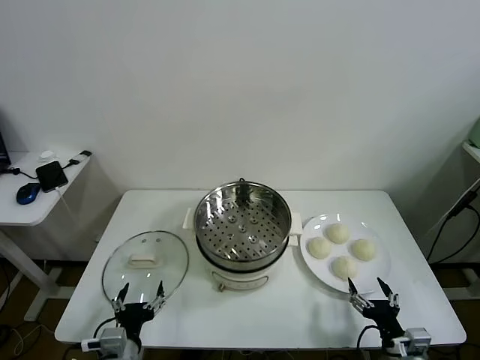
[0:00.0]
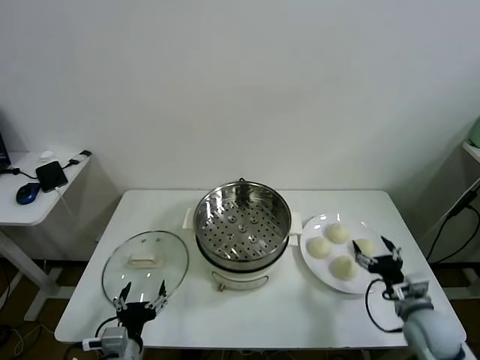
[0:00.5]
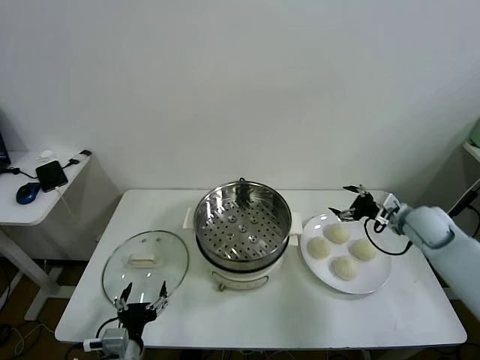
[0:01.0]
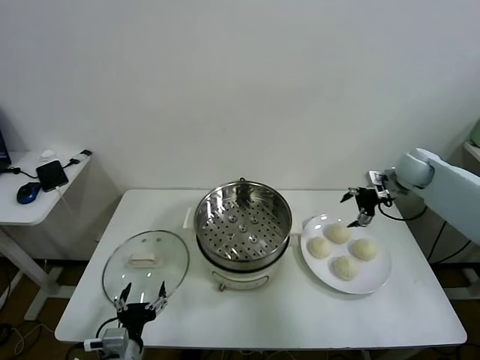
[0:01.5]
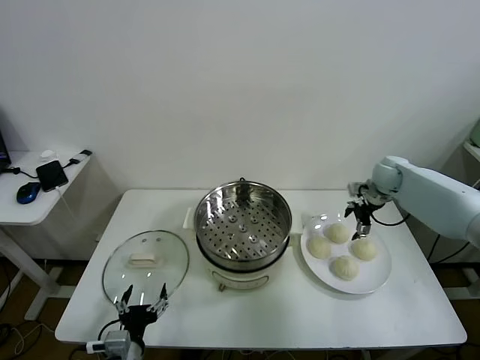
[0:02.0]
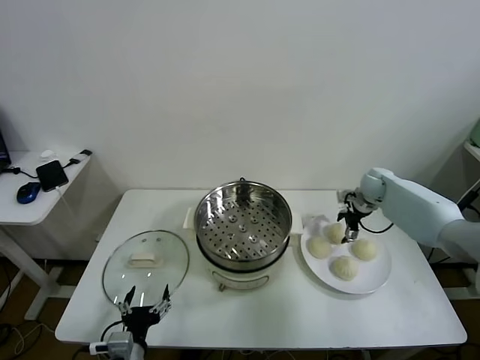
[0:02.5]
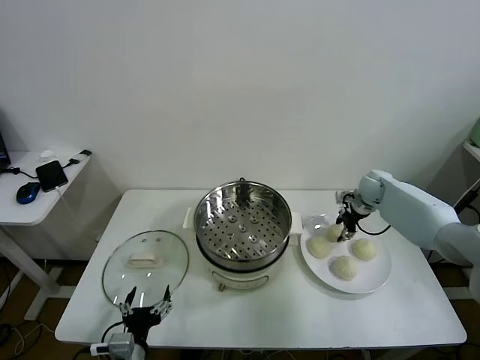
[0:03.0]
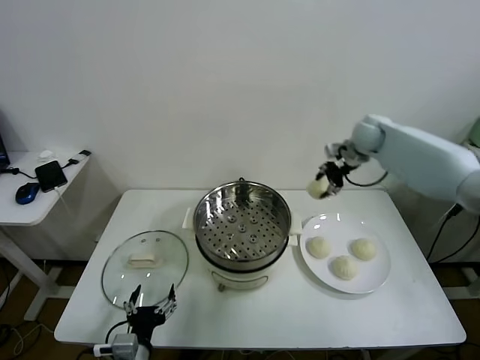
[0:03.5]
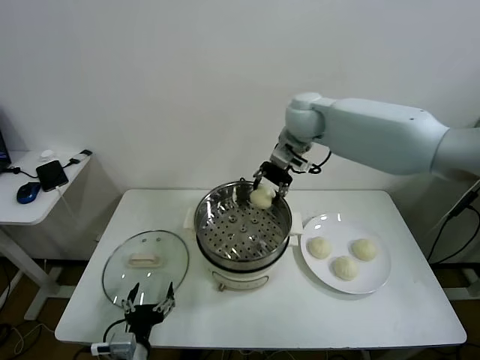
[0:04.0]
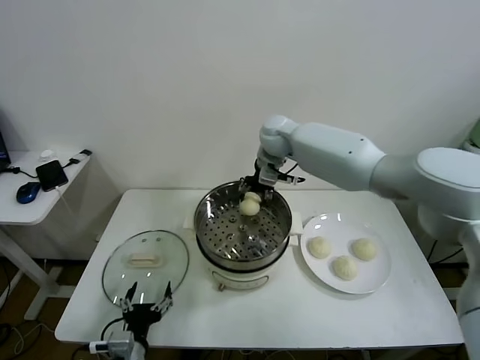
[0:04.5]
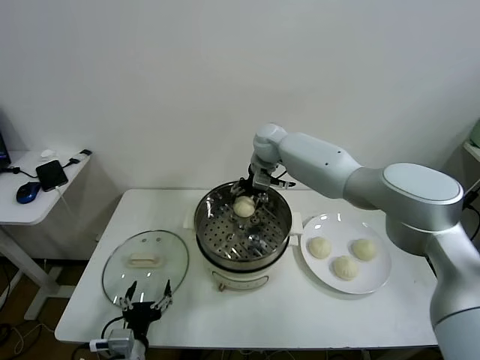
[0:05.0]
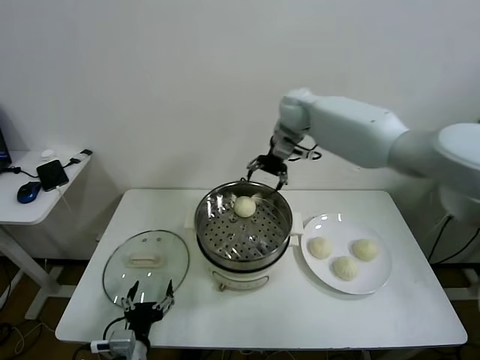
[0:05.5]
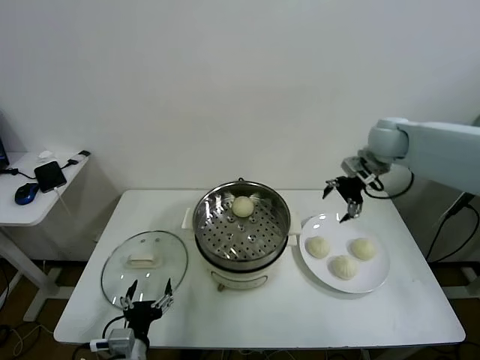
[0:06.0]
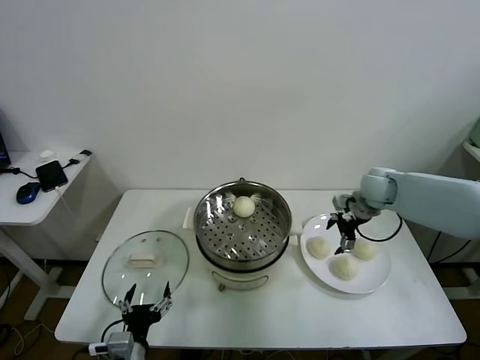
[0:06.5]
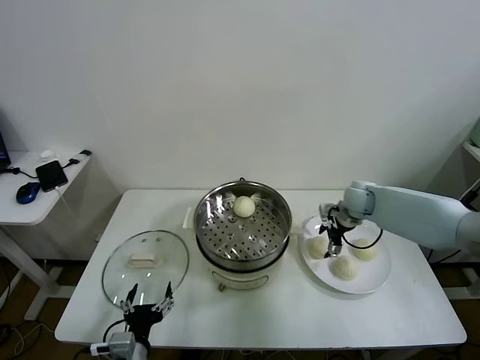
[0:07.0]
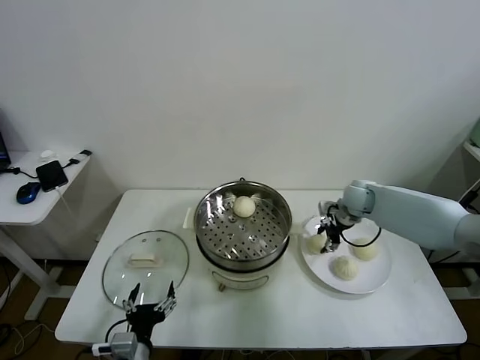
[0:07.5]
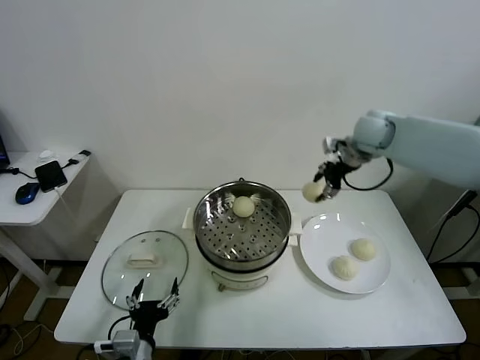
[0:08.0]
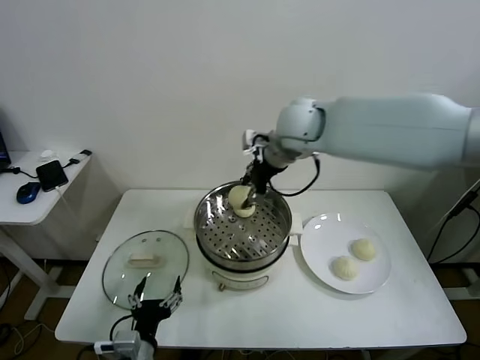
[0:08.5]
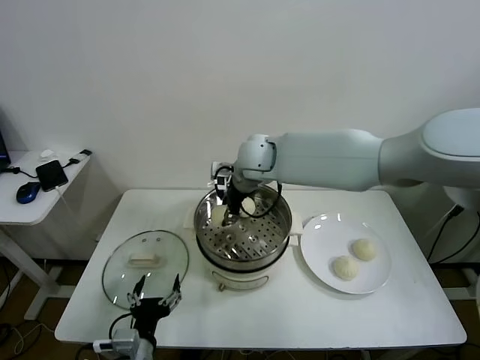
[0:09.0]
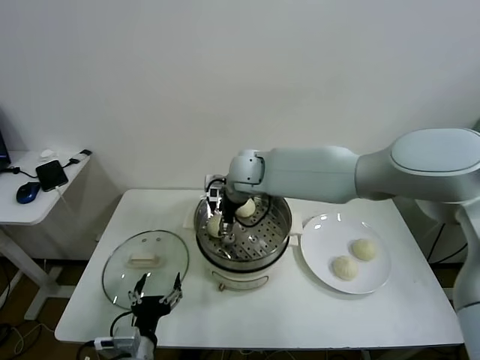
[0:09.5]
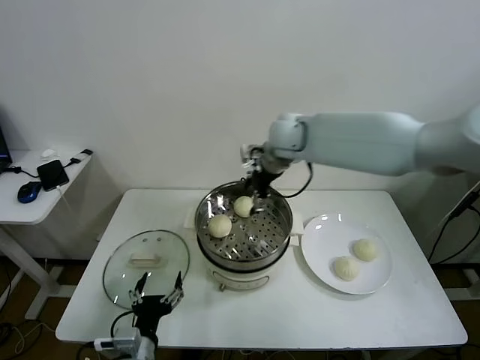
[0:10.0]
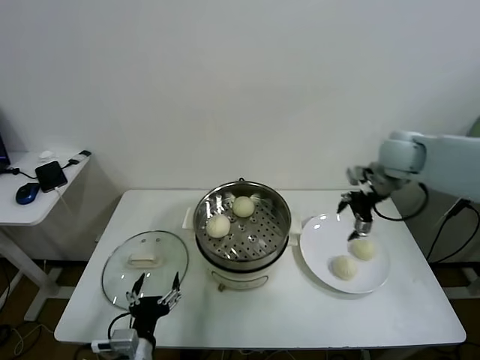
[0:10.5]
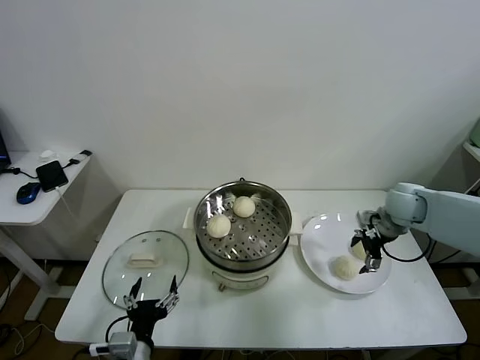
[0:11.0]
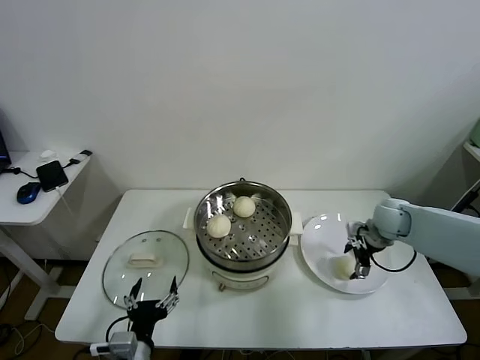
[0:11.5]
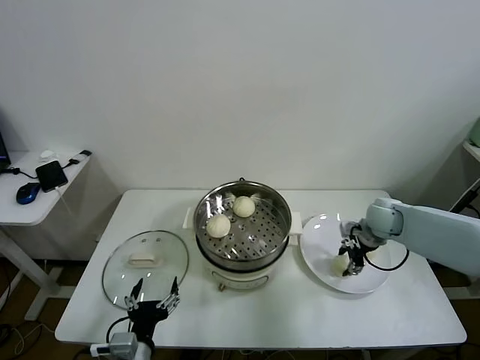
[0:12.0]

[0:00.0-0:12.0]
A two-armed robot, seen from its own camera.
Task of the whole recording: take steamed baozi put them in steamer.
Step, 0:00.0 to 0:02.5: Grasp the baozi in the plate with right gripper.
Step, 0:03.0 to 0:05.0: Place the baozi on the steamer with right gripper.
Step, 0:05.5 to 0:07.0: Grasp the baozi in the plate with right gripper.
Step, 0:07.5 to 0:09.5: Place the baozi on the steamer with right gripper.
Step, 0:10.0 to 0:11.5: Grasp the baozi in the plate with right gripper.
0:02.0 to 0:04.0: The right gripper is displaced to the left and upward by approximately 30 cm, and closes its fingers.
0:04.0 to 0:06.0: The right gripper travels to the right by some 20 cm, and opens its fingers.
0:06.0 to 0:08.0: The right gripper shifts some 5 cm to the left, travels downward and back again, some 15 cm each way, and closes.
0:08.0 to 0:10.0: The right gripper shifts roughly 15 cm to the left, and opens up.
0:10.0 to 0:12.0: The right gripper is displaced to the right and downward by approximately 30 cm, and closes.

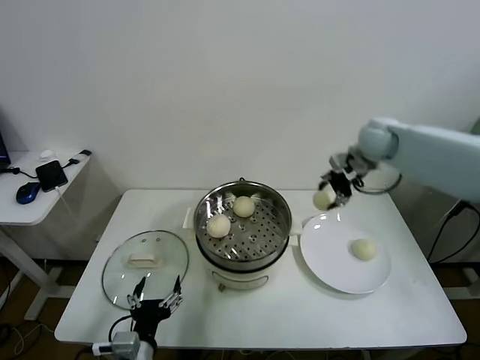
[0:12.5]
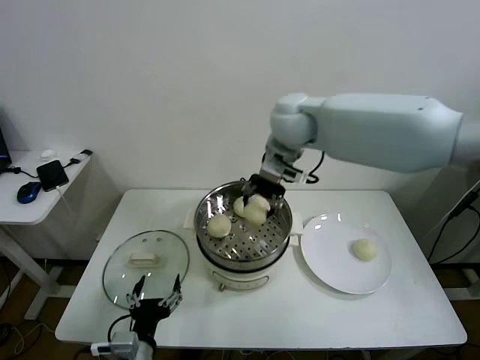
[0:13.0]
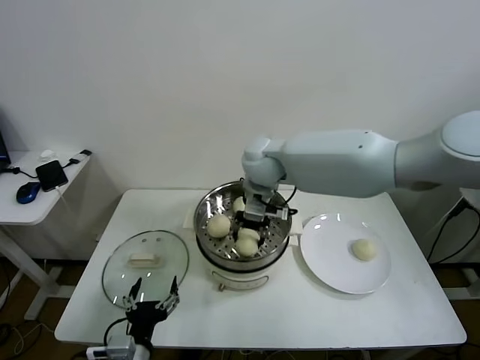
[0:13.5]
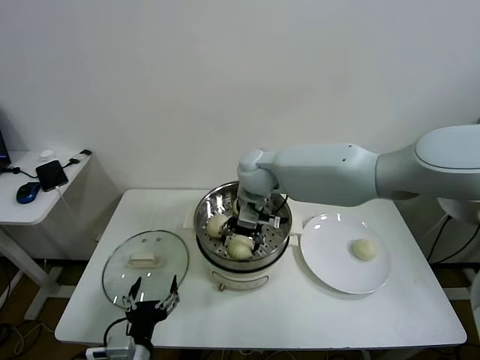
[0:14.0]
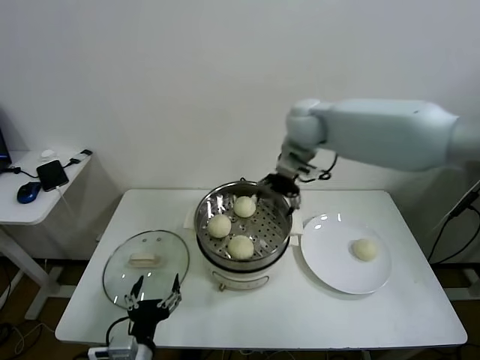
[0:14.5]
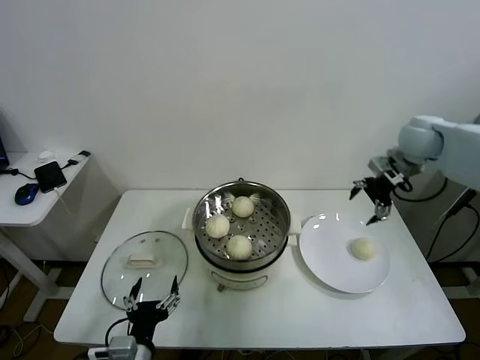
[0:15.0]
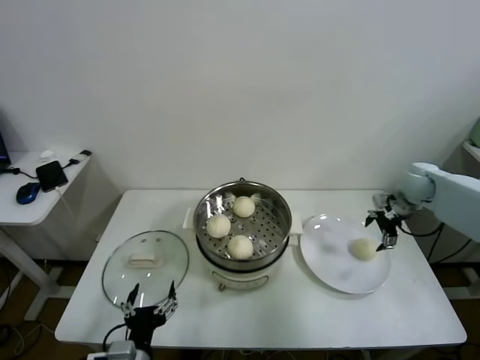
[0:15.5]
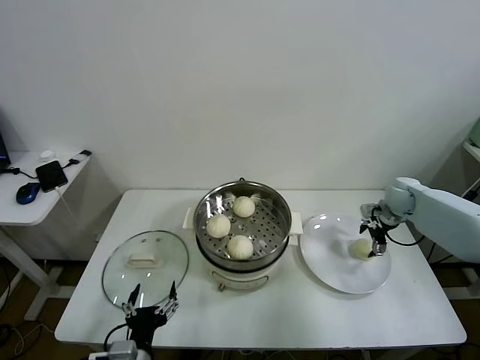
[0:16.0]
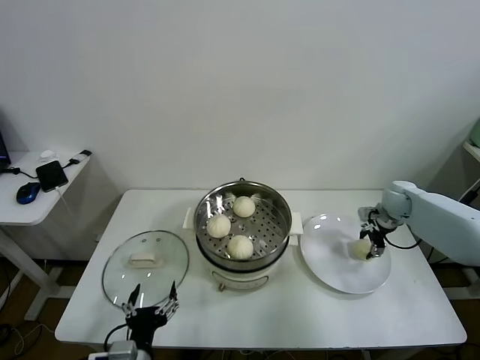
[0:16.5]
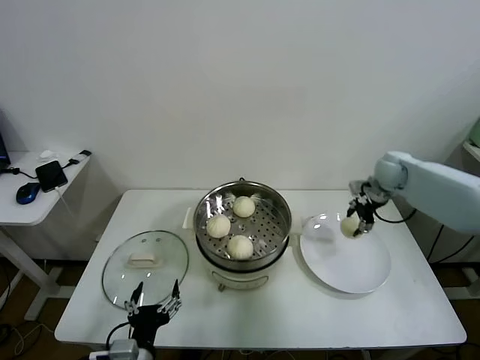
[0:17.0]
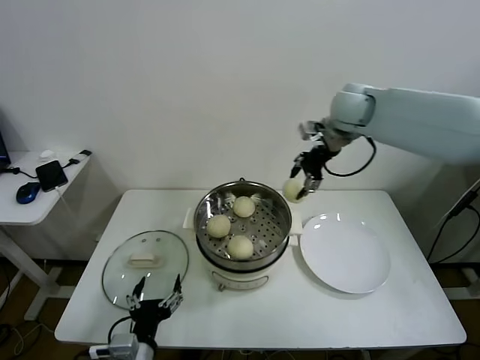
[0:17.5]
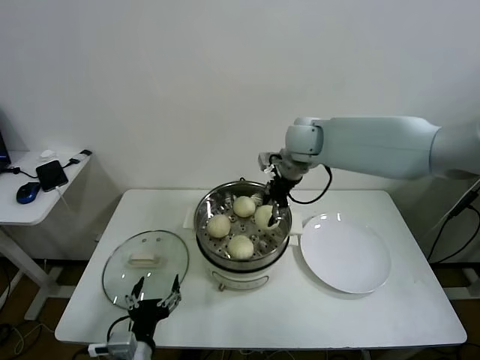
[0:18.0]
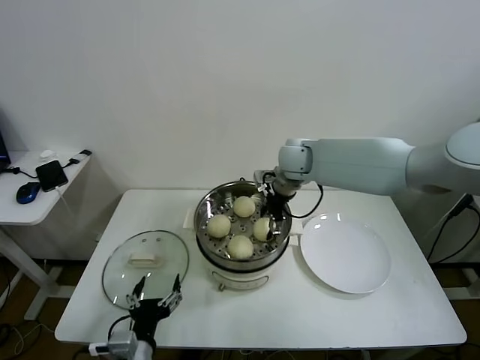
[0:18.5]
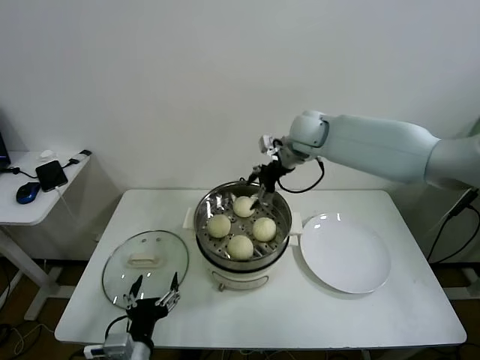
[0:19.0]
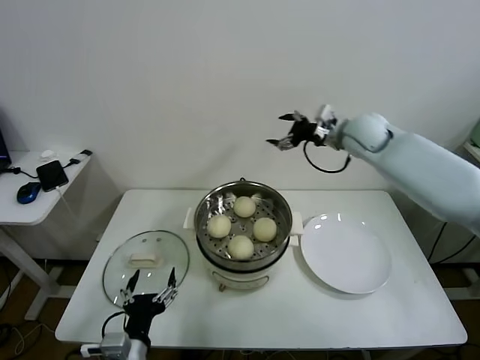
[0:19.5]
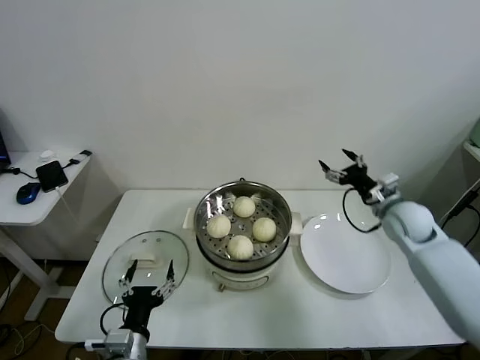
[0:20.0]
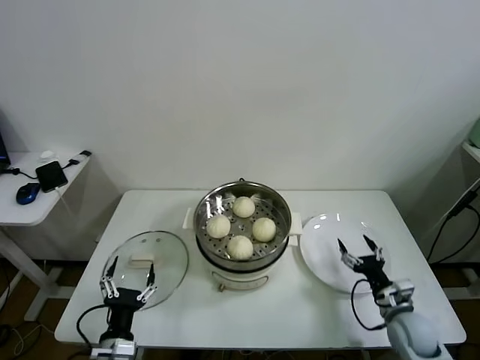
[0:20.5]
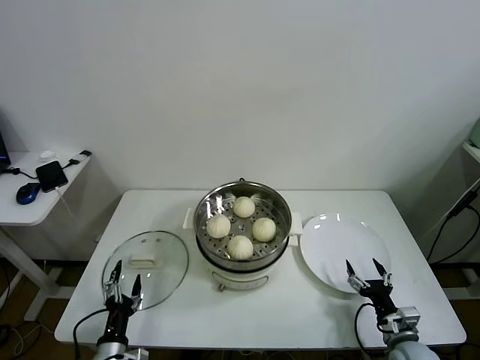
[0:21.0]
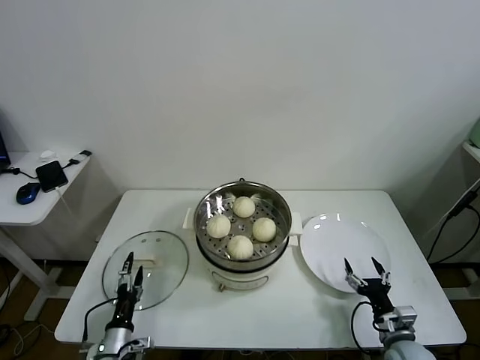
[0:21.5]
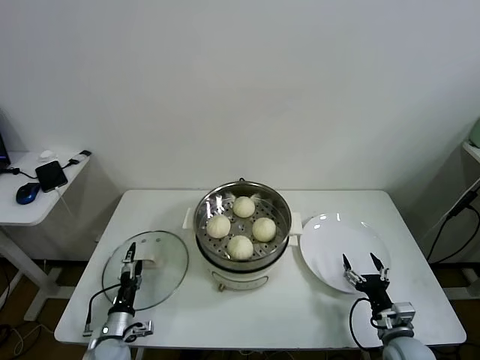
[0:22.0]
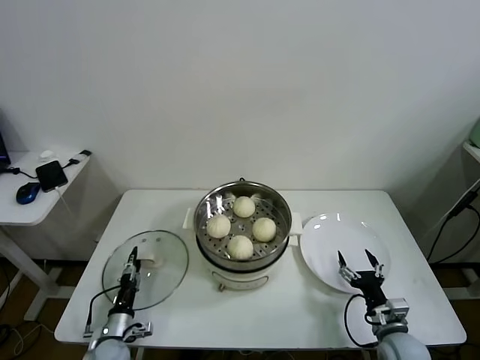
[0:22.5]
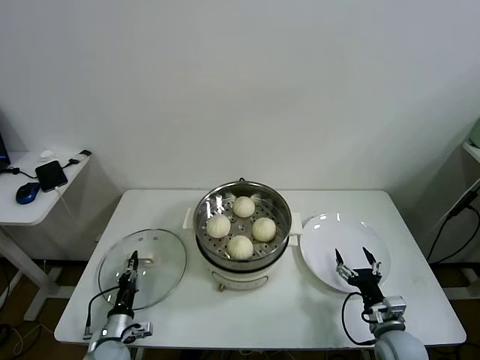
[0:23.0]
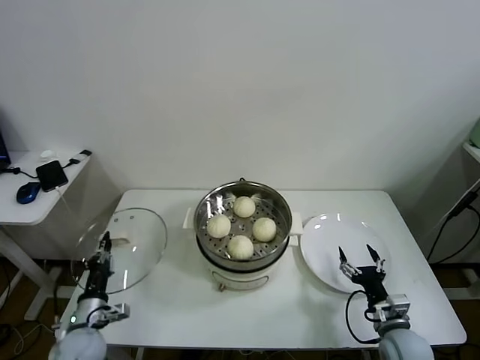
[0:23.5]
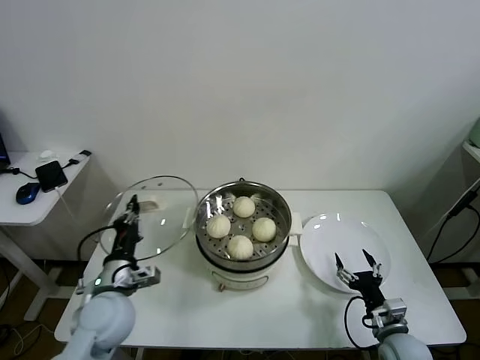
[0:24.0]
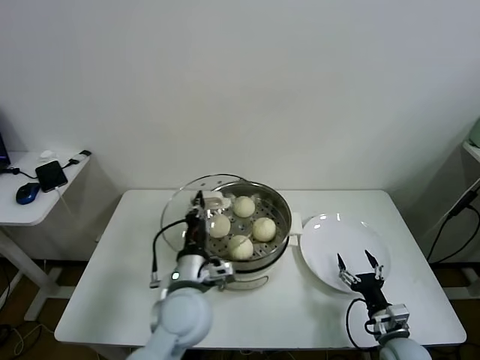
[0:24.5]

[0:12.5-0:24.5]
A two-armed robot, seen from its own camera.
Task of the whole recording: take steamed baozi put them in steamer.
Step, 0:12.5 to 0:14.0: Place the baozi on the steamer with right gripper.
Step, 0:14.5 to 0:16.0: Grasp the baozi in the plate with right gripper.
Step, 0:16.5 to 0:18.5: Place the baozi on the steamer with right gripper.
Step, 0:19.0 to 0:22.5: Grasp the pot lid with left gripper.
0:12.5 to 0:14.5: The right gripper travels to the left by some 15 cm, and opens its fingers.
0:14.5 to 0:16.5: The right gripper shifts about 35 cm to the right and downward, and closes up.
0:16.5 to 0:18.5: The right gripper is displaced to the left and upward by about 30 cm, and opens.
0:18.5 to 0:20.5: The right gripper heads downward, backward and to the right, covering approximately 50 cm. Meanwhile the left gripper ends up about 5 cm from where it was.
0:20.5 to 0:22.5: The right gripper changes place by some 5 cm. The left gripper shifts about 20 cm downward, forward and to the left, and closes up.
0:22.5 to 0:24.5: The left gripper goes some 35 cm upward and to the right, and closes up.

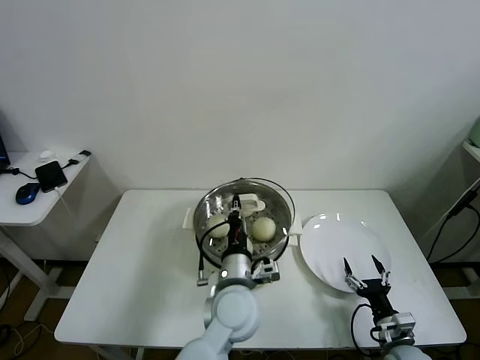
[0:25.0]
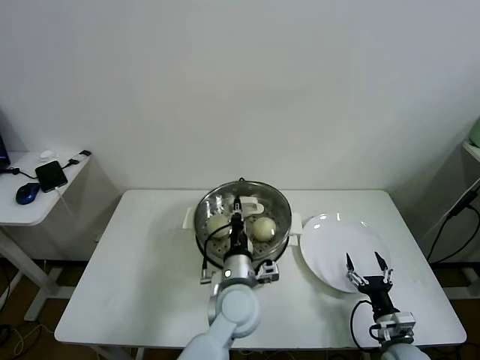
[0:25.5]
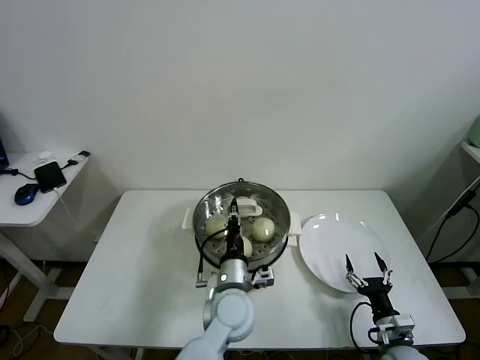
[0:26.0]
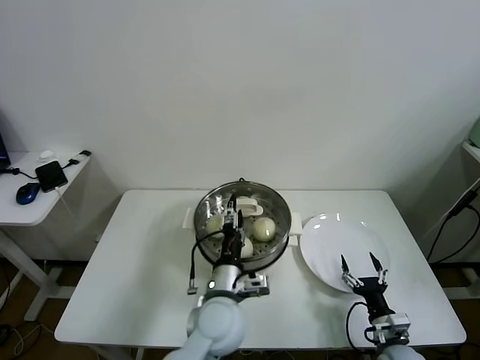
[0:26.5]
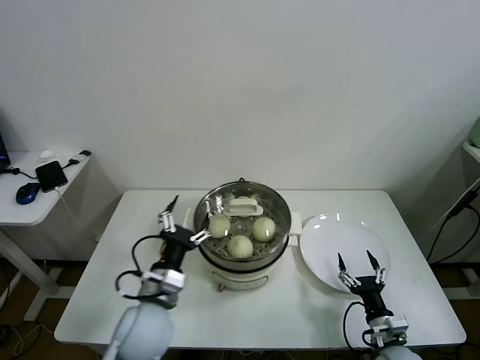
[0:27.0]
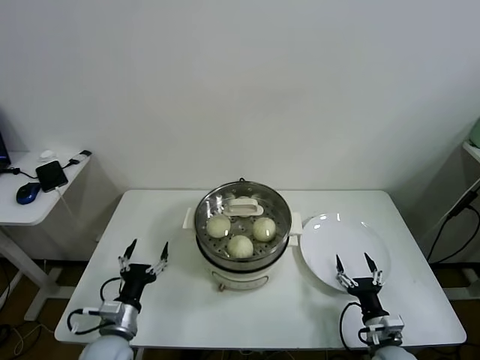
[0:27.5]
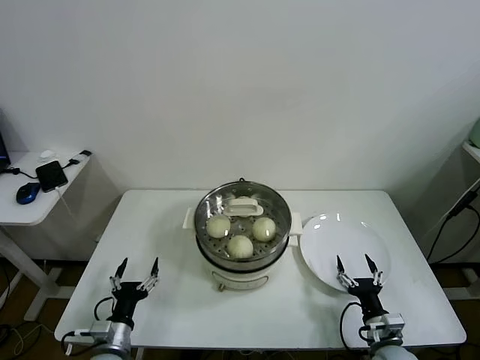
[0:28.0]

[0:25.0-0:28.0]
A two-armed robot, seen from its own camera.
Task of the whole recording: take steamed baozi put them in steamer.
0:25.0 to 0:26.5: The left gripper opens its fingers.
0:26.5 to 0:28.0: The left gripper moves to the left and downward, about 30 cm, and opens up.
